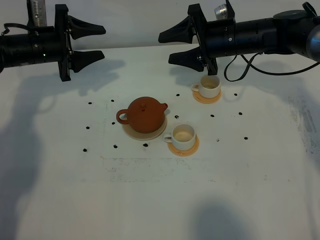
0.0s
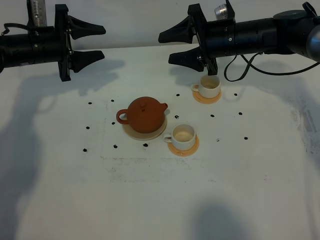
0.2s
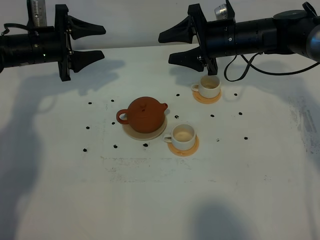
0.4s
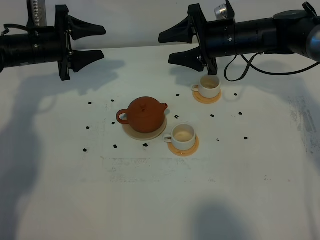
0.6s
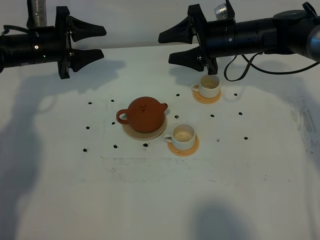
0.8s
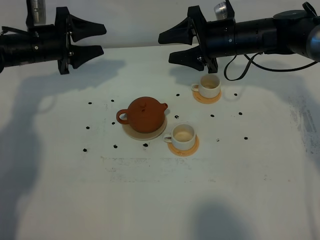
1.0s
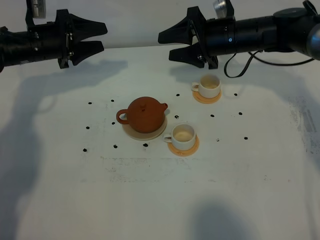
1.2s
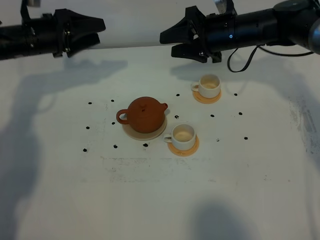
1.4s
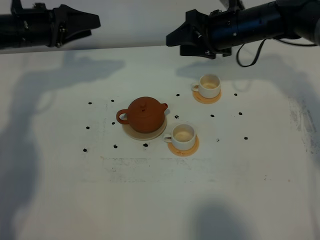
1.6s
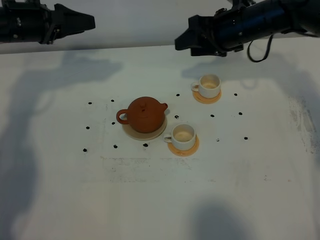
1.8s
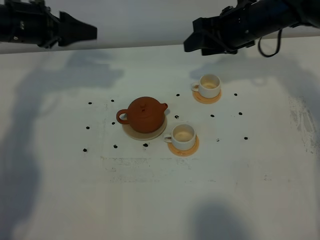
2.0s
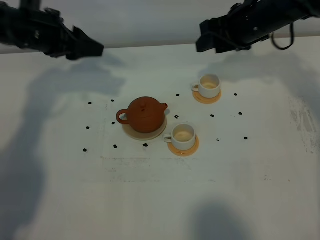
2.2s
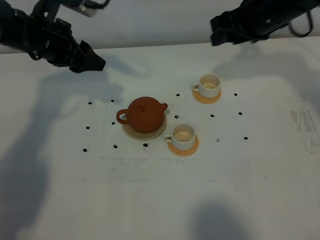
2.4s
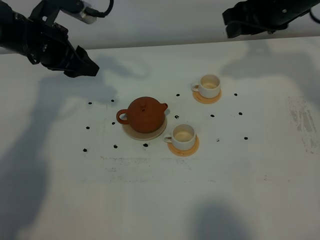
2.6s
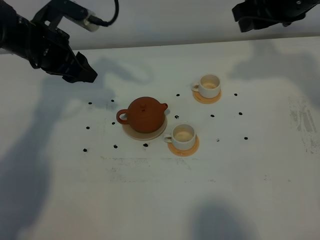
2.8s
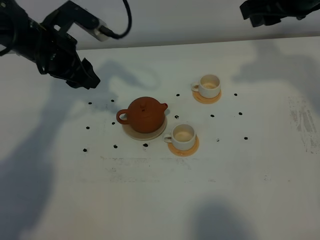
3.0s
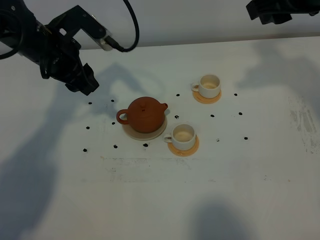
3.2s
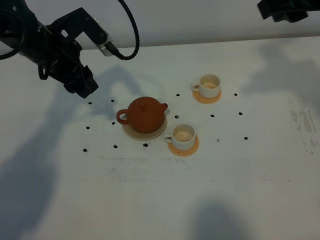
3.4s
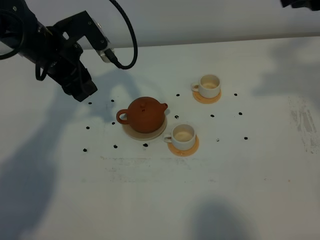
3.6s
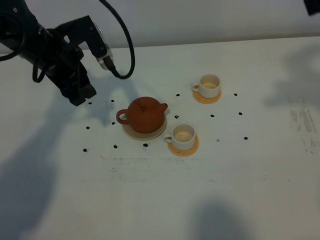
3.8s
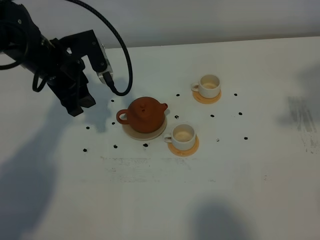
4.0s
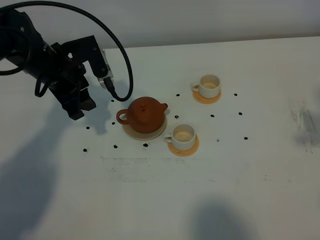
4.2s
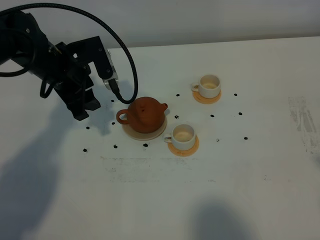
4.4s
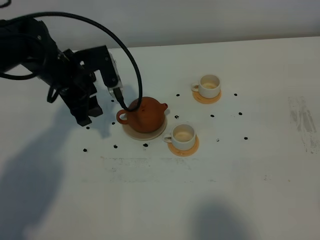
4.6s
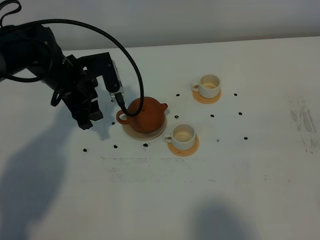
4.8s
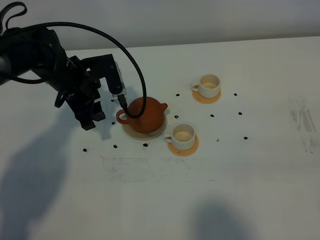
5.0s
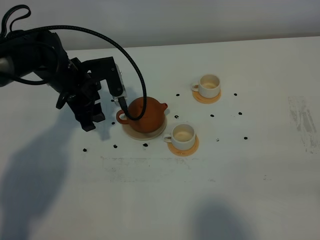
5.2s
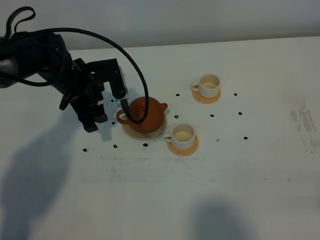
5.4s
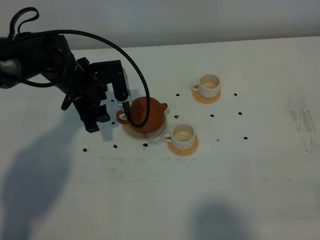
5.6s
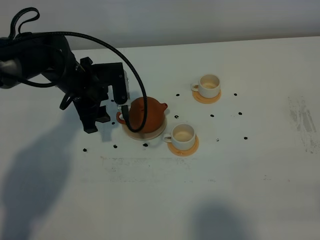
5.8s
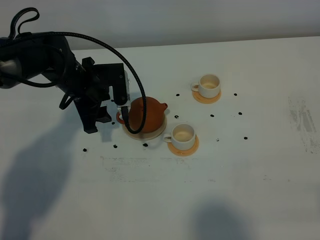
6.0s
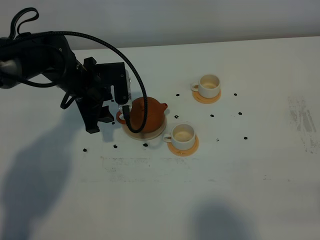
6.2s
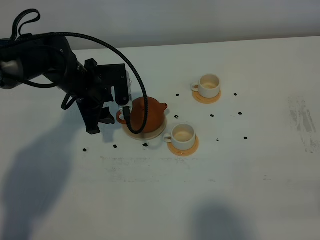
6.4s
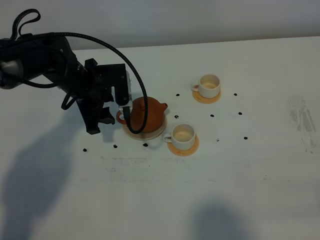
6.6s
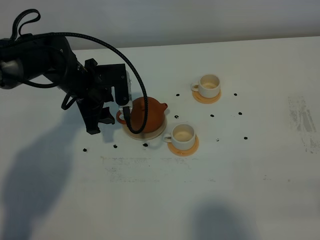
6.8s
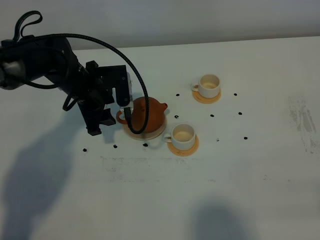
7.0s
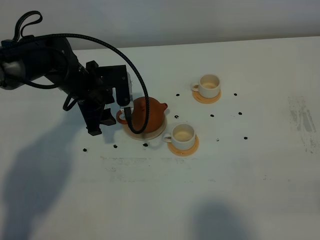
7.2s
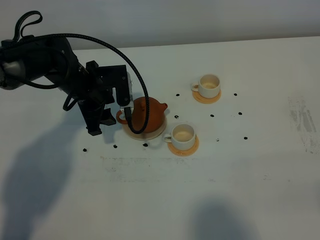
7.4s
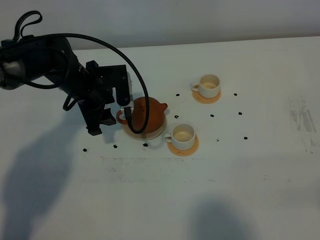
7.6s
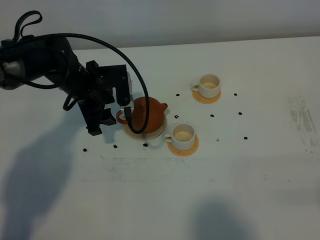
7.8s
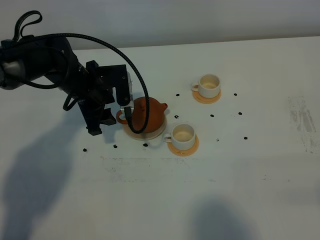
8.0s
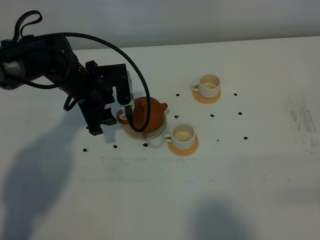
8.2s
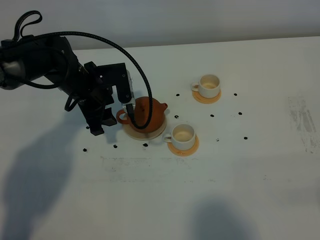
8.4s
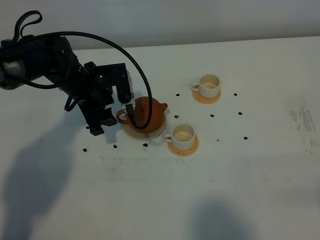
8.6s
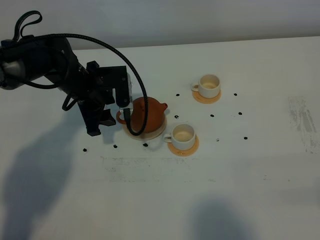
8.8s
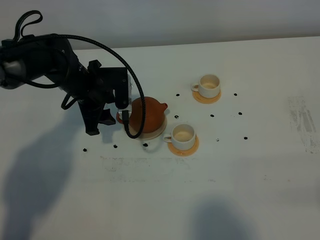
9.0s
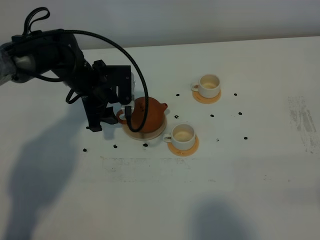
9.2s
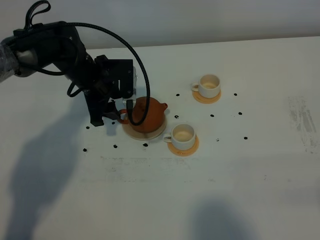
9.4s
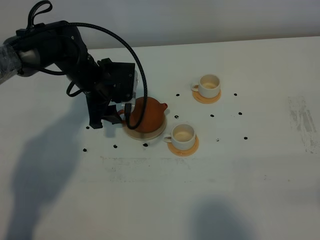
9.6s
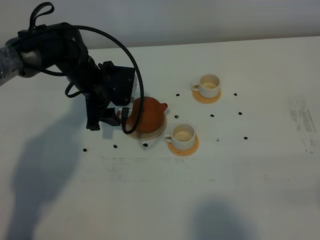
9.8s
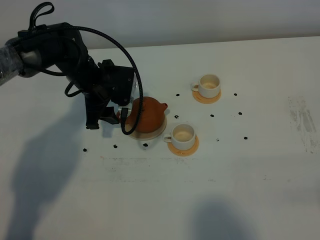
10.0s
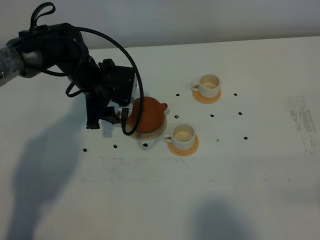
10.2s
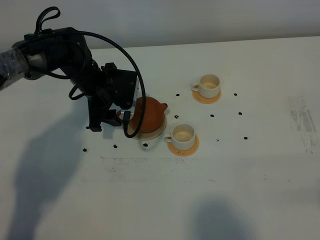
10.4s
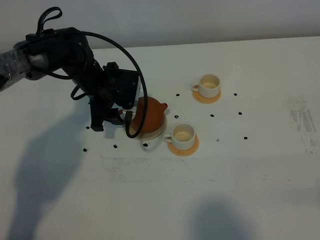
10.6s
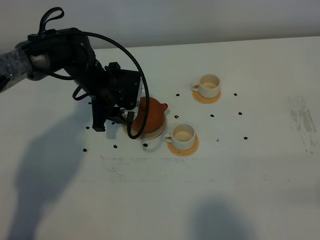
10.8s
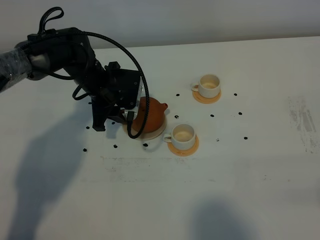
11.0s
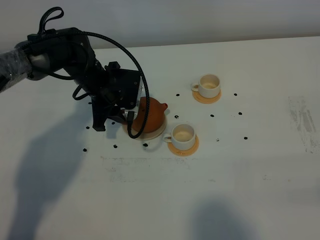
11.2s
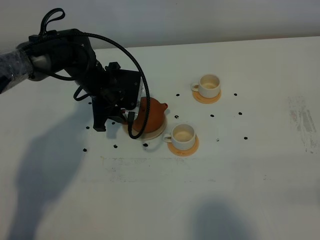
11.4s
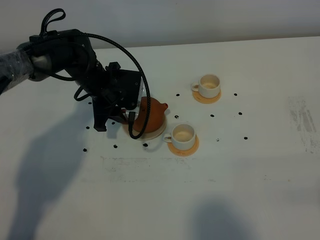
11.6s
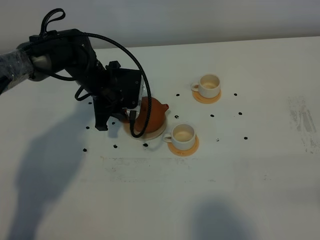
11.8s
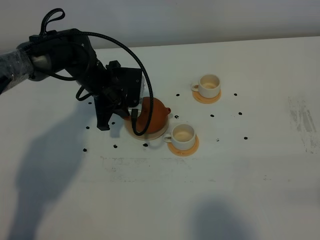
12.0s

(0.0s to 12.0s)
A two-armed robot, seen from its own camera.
Task of the whole recording: grasp the brown teapot and pour the tea into the two white teacups one by one, put the brown teapot back in its original place.
0.0s - 1.6s: The left gripper shifts approximately 5 cm upward. The right gripper closes up.
1.6s - 3.0s: The right gripper travels upward and backward by approximately 15 cm. Meanwhile the left gripper moves to the right, approximately 5 cm.
3.0s - 4.4s: The right gripper moves backward, roughly 25 cm, and closes.
4.4s - 6.0s: The right gripper goes approximately 20 cm downward and backward, while the left gripper changes place by about 5 cm.
7.6s - 9.0s: Both grippers stay about where they are.
9.0s - 10.4s: There are only small adjustments of the grippers.
10.4s - 12.0s: The left gripper closes.

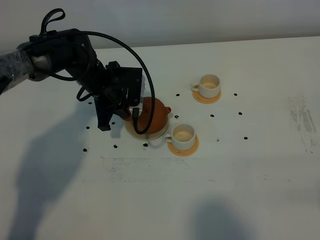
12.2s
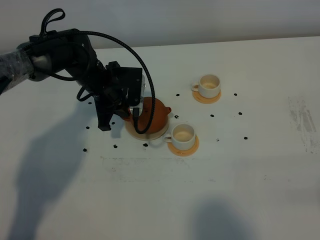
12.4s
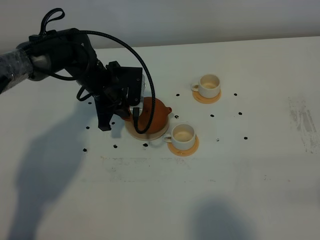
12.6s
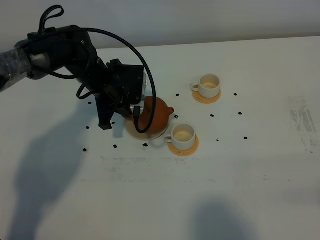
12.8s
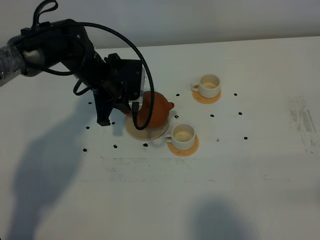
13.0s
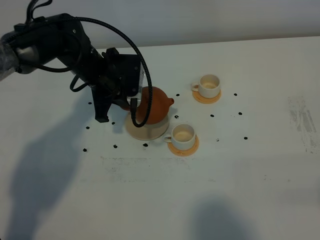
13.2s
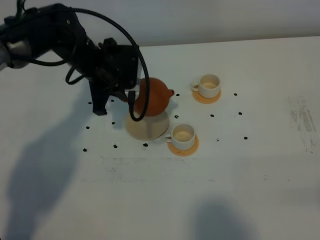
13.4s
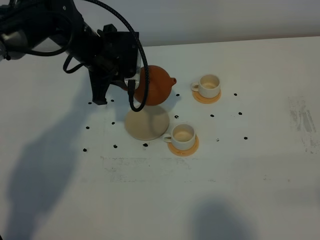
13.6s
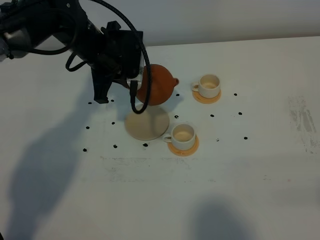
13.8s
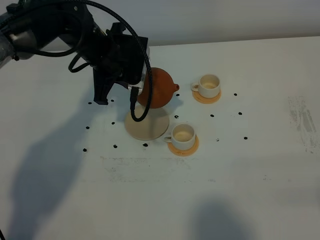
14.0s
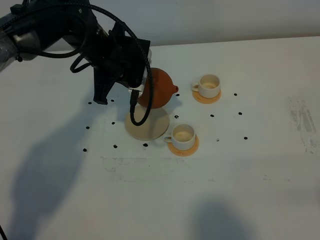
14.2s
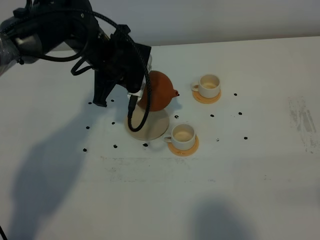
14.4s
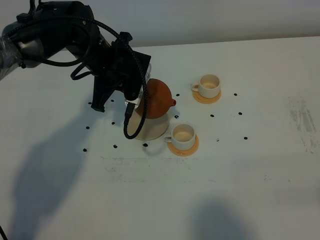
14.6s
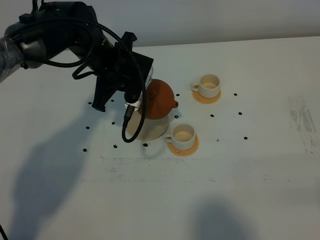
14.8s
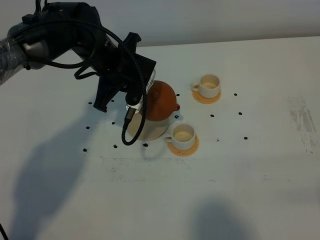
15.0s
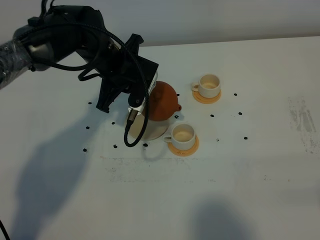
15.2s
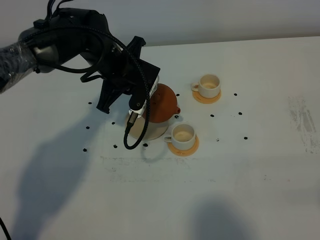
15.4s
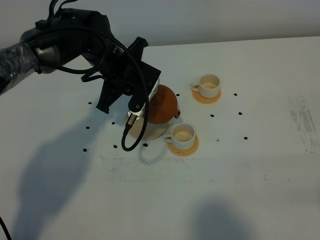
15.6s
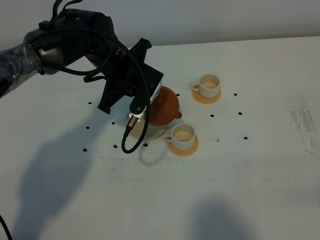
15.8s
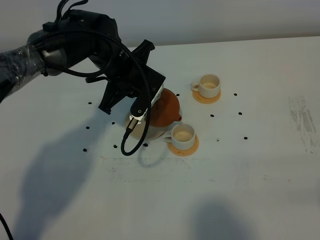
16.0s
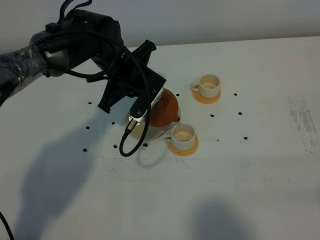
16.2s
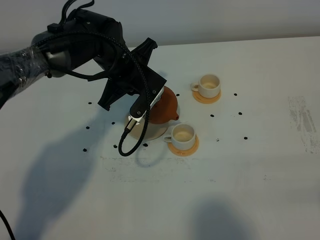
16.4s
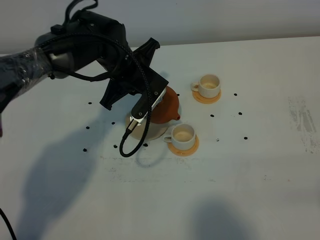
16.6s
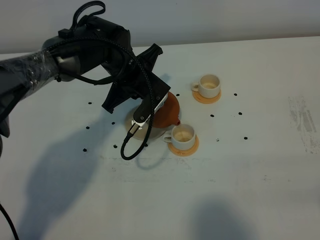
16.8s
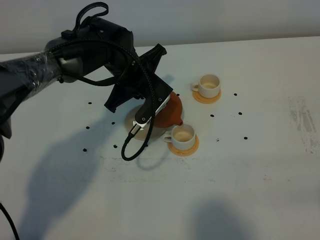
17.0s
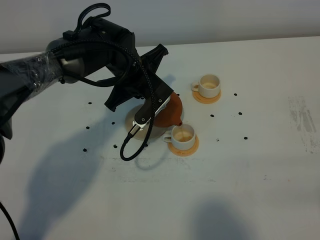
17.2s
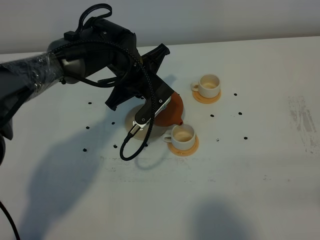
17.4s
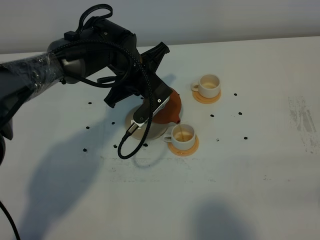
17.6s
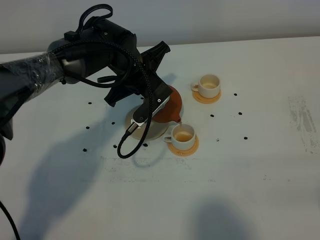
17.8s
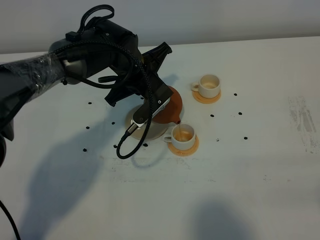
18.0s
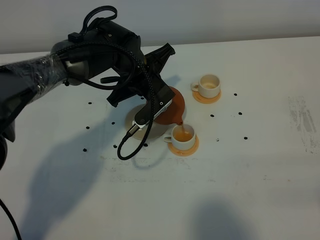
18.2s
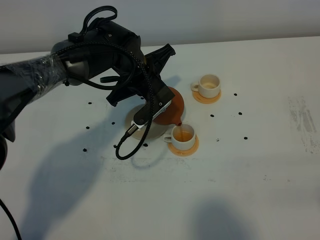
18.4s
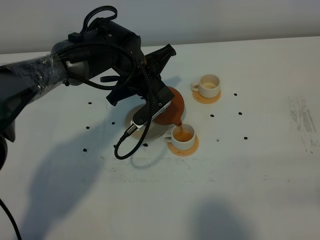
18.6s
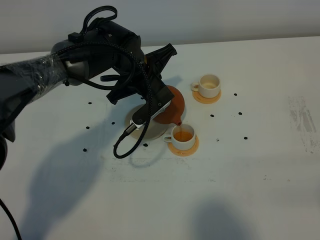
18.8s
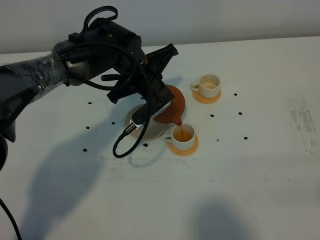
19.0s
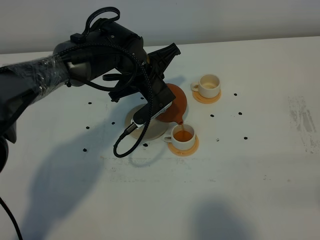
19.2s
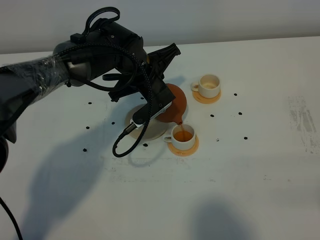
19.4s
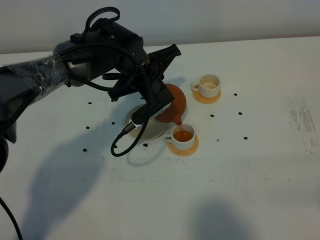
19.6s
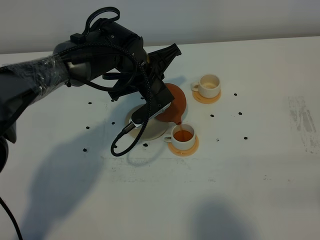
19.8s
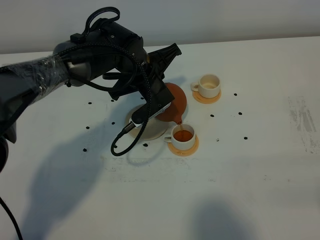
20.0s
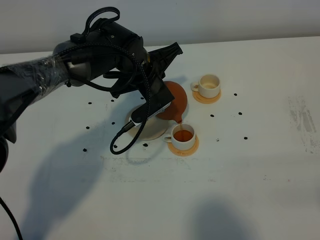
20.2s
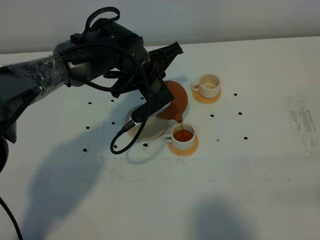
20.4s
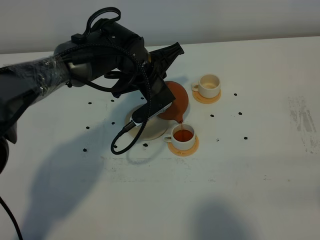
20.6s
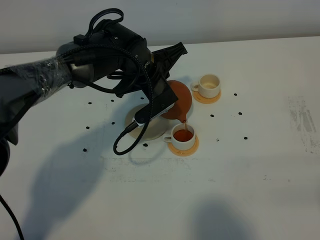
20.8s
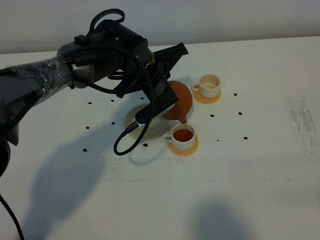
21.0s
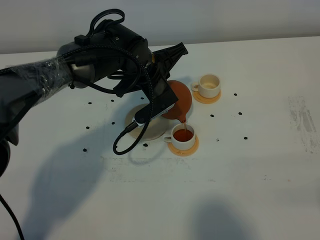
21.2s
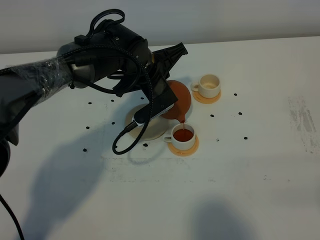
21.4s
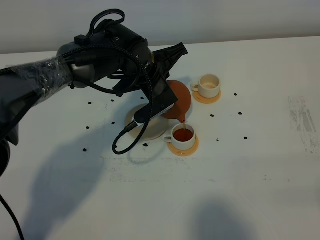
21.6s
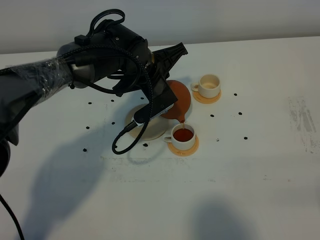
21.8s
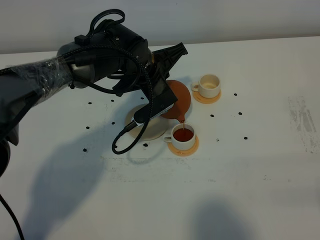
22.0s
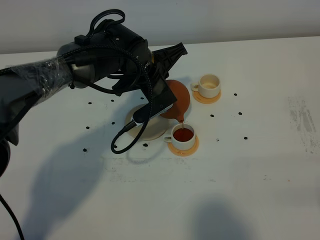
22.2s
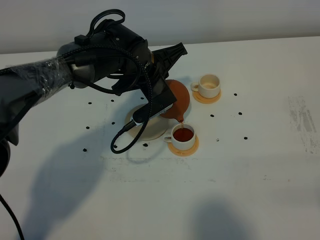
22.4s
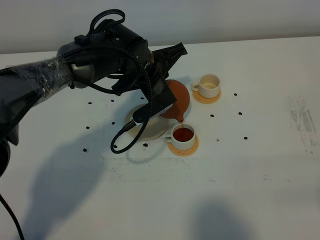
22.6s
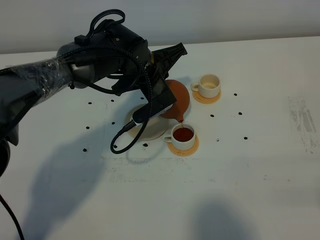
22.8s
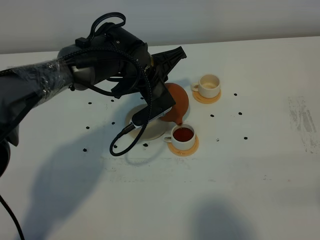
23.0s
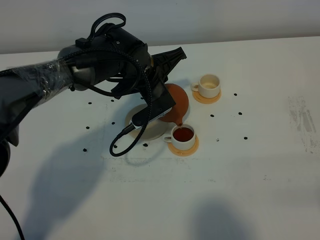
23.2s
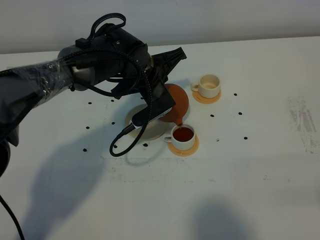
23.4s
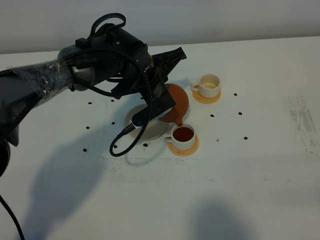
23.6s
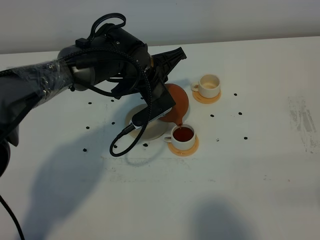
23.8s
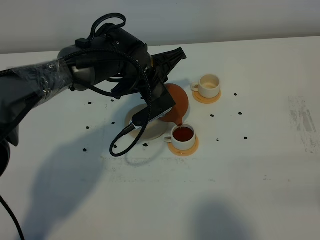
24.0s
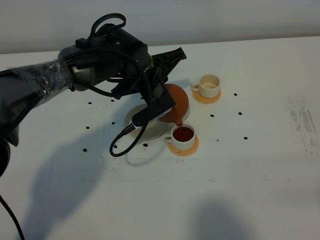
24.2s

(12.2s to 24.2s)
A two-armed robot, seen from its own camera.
Task of the whole recording: grasp the brown teapot and pour the tea into the two white teacups one by one, put the brown teapot back in its original place.
12.2s - 13.8s: The left gripper shifts about 10 cm upward.
15.2s - 16.6s: There are only small adjustments of the grippers.
16.6s - 18.2s: The grippers make only small movements.
18.2s - 19.8s: The grippers make only small movements.
19.8s - 21.2s: Neither gripper changes place.
21.2s - 24.2s: Neither gripper changes place.
